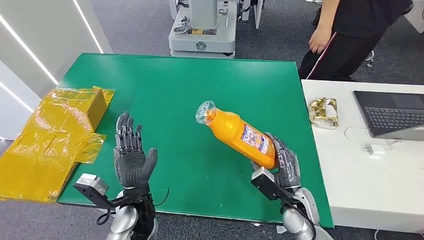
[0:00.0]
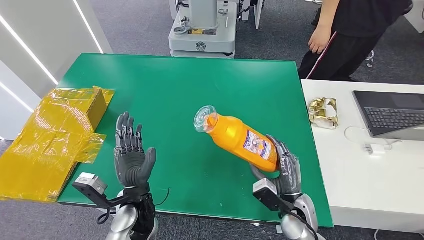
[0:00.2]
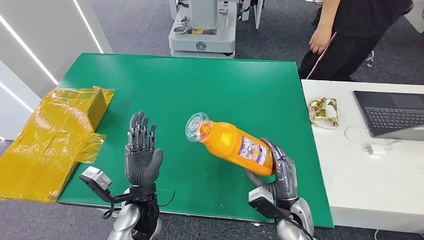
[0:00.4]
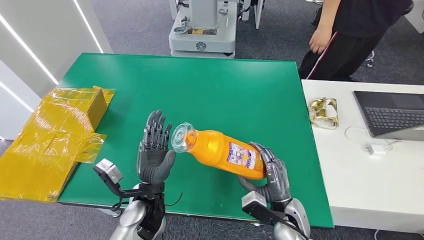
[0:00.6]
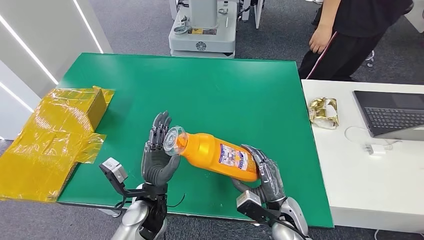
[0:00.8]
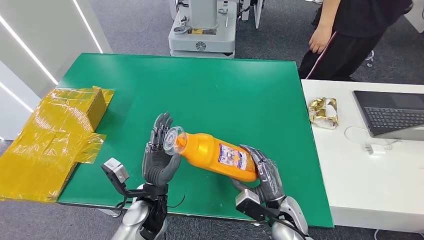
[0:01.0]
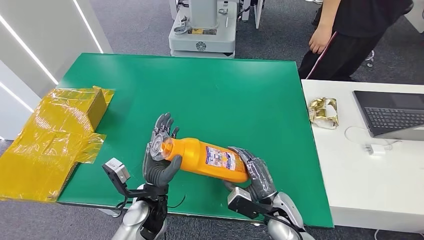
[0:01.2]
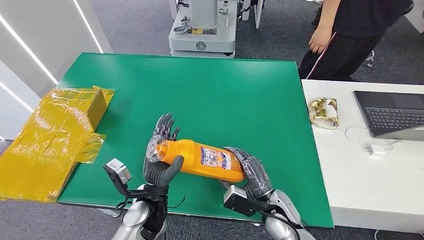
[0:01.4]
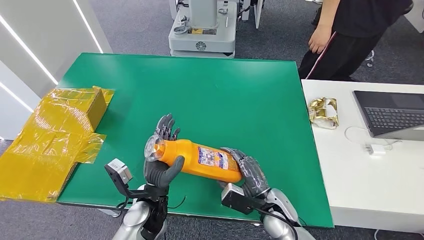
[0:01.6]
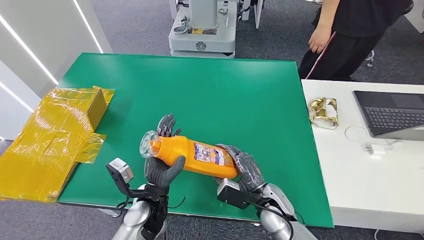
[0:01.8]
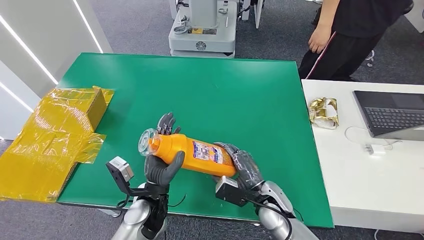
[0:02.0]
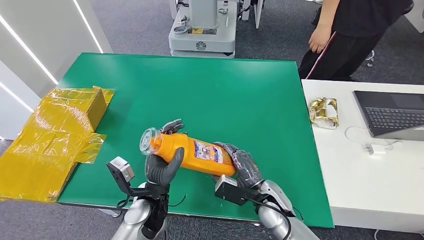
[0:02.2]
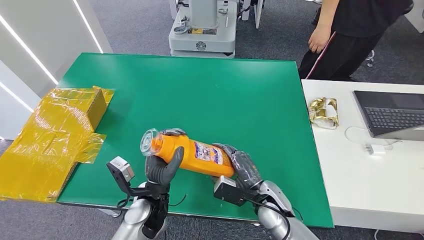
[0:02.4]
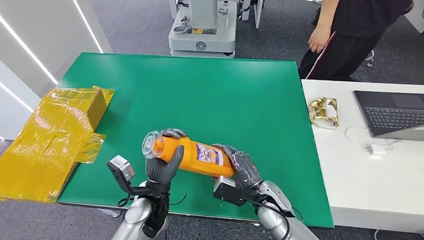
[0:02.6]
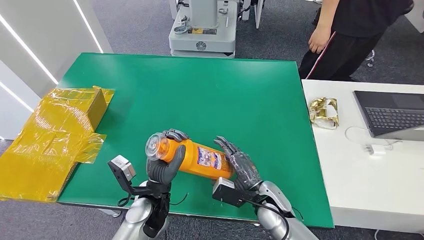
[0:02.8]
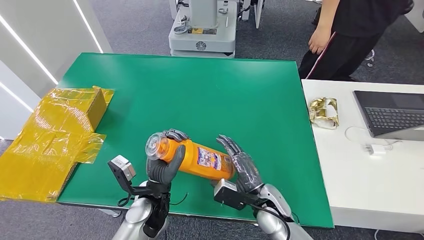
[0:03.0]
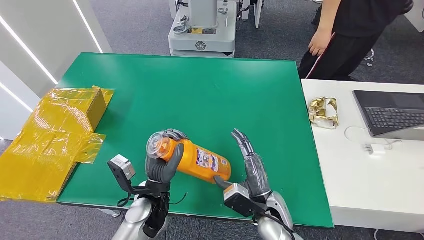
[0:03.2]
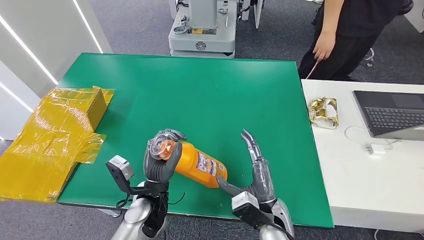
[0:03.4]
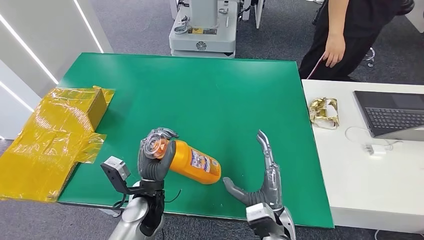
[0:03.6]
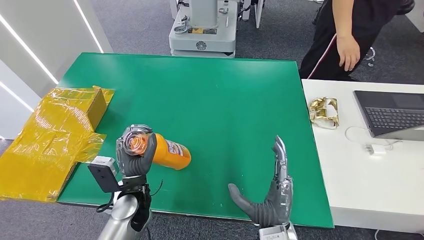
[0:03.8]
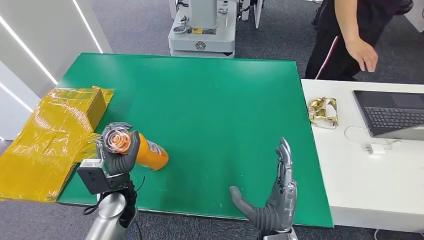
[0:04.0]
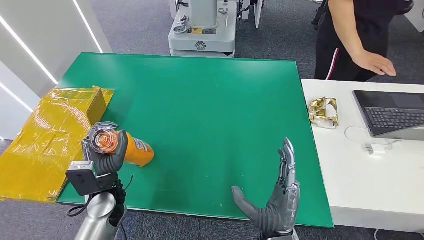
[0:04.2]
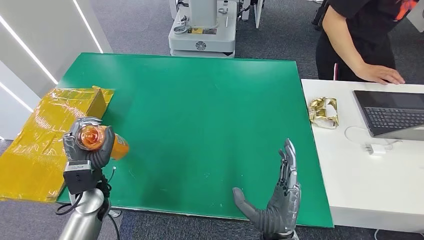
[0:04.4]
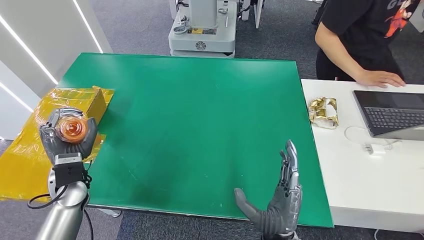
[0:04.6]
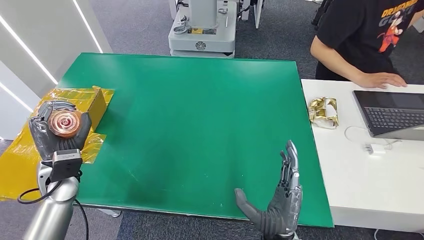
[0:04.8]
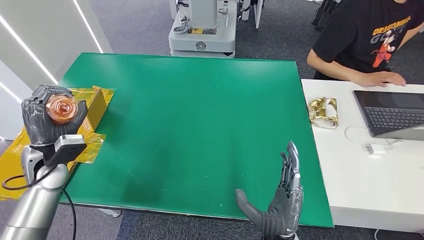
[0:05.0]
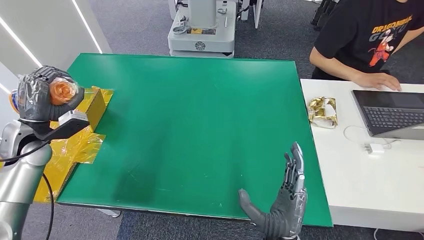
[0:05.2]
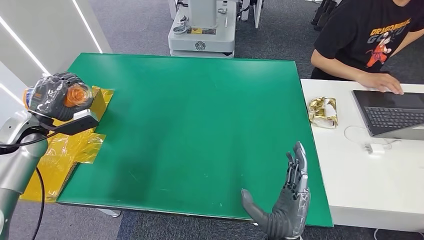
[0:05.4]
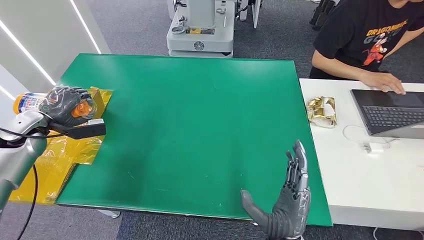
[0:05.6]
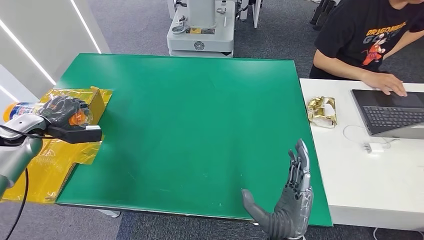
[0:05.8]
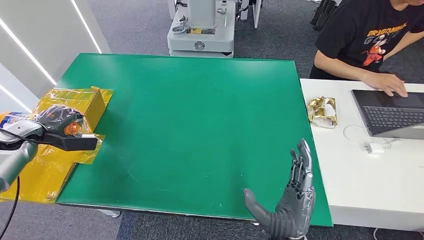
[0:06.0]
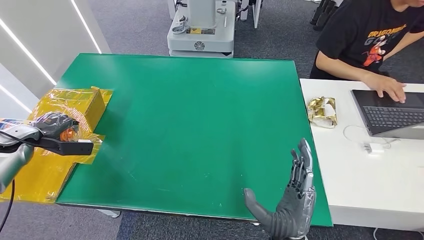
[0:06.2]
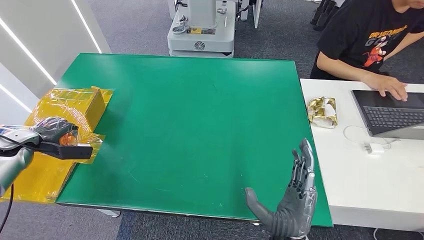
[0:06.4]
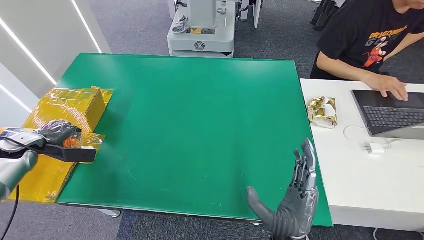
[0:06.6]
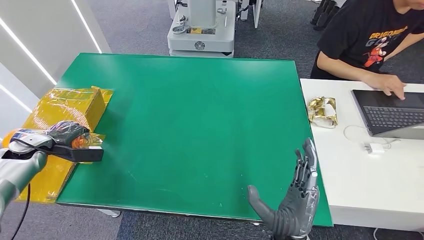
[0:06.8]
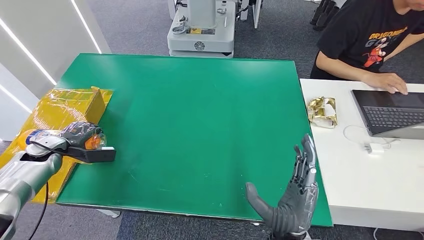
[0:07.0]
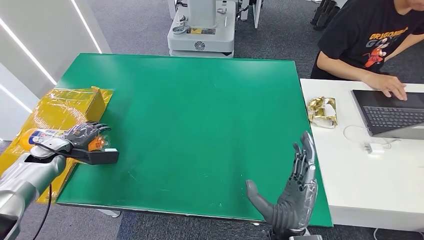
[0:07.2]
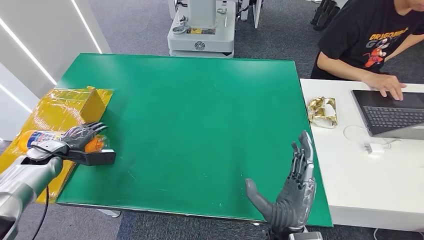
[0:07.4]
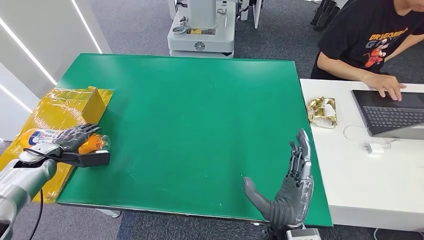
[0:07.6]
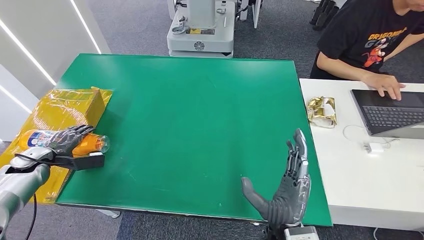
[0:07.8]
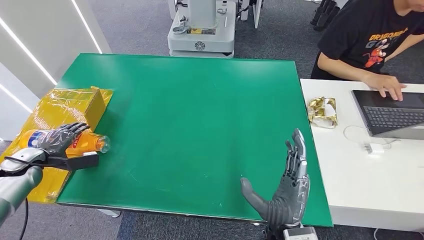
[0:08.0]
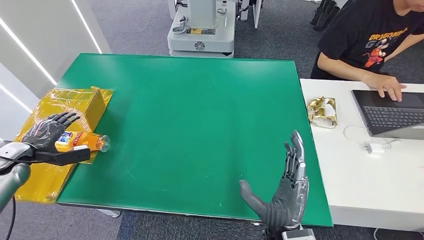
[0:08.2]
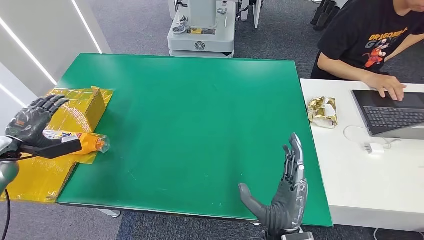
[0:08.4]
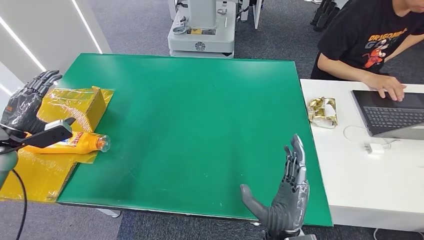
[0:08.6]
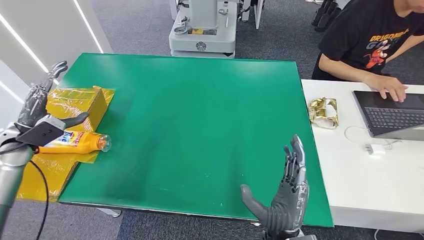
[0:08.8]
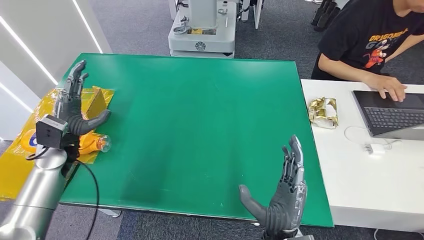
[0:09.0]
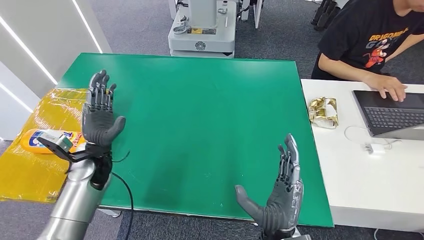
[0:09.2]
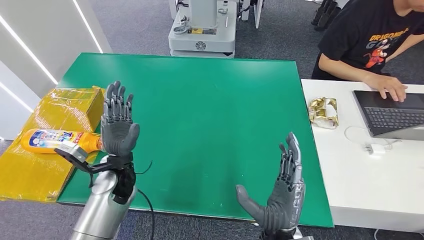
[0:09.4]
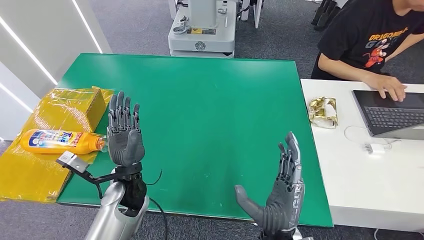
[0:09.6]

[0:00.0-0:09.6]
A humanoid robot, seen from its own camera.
Step, 0:00.0 to 0:01.6: Pick up the bottle from the table.
Step, 0:01.8 to 0:09.6: Turn the bottle to the front side.
0:01.6 to 0:03.2: The hands make only small movements.
0:03.2 to 0:04.8: The right hand is displaced backward by about 10 cm, while the left hand shifts approximately 25 cm to the left.
0:04.8 to 0:06.4: The left hand heads to the left, covering approximately 20 cm.
0:06.4 to 0:08.0: The left hand is displaced downward by roughly 5 cm.
0:08.0 to 0:09.6: The left hand heads to the right, covering roughly 35 cm.
